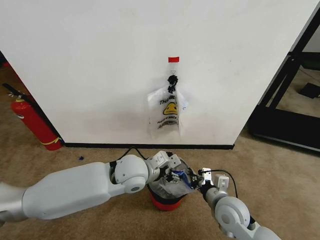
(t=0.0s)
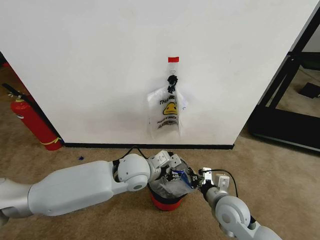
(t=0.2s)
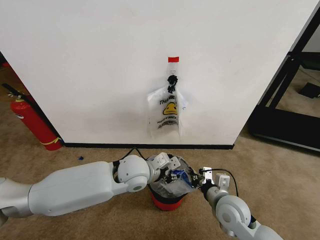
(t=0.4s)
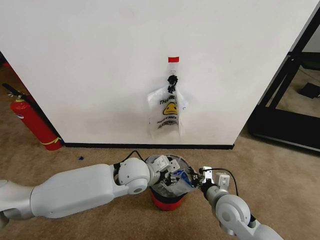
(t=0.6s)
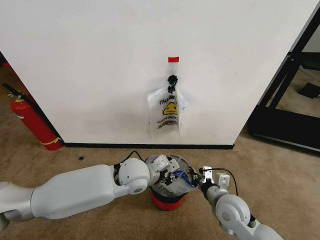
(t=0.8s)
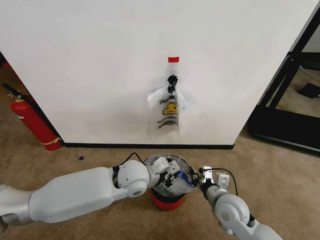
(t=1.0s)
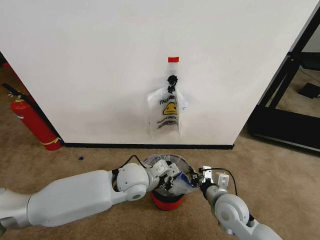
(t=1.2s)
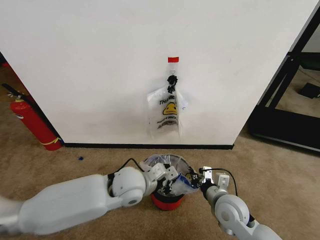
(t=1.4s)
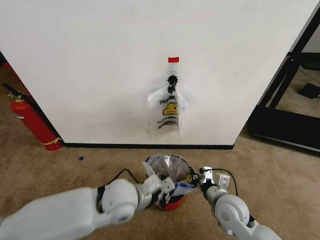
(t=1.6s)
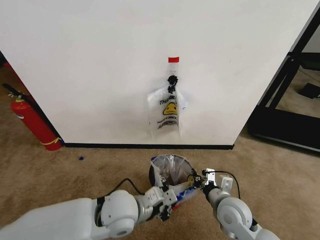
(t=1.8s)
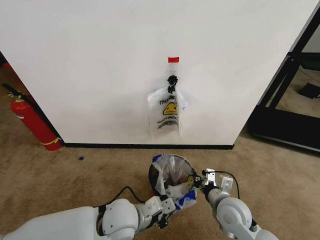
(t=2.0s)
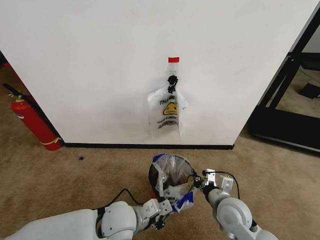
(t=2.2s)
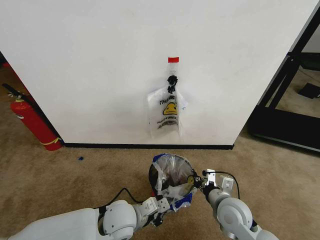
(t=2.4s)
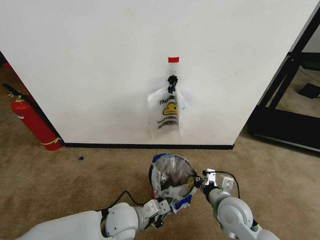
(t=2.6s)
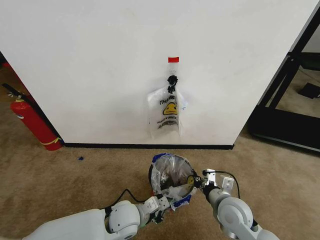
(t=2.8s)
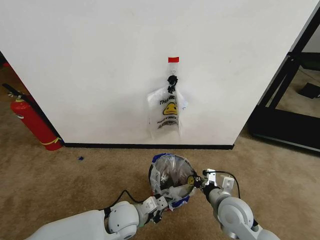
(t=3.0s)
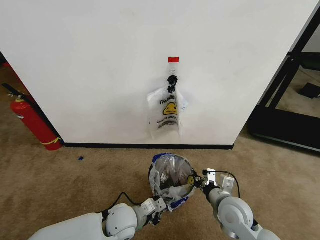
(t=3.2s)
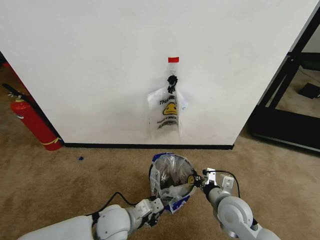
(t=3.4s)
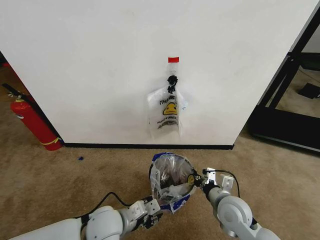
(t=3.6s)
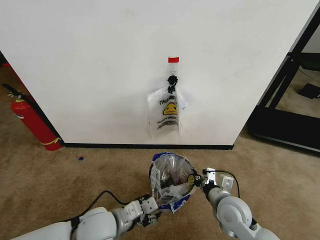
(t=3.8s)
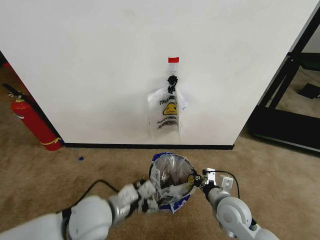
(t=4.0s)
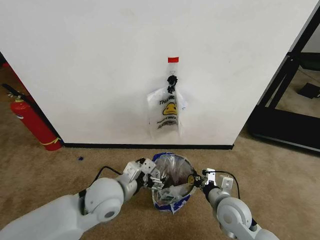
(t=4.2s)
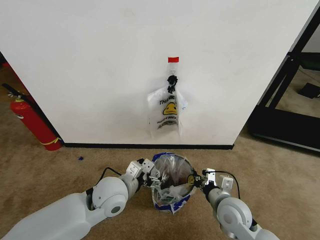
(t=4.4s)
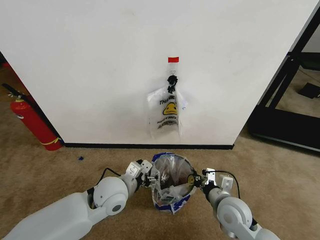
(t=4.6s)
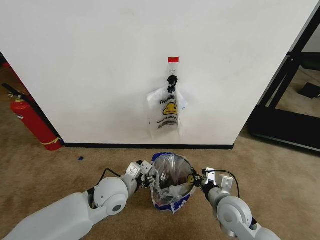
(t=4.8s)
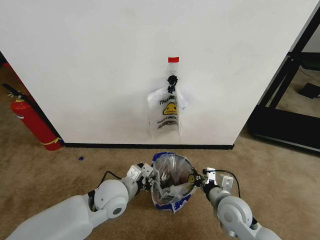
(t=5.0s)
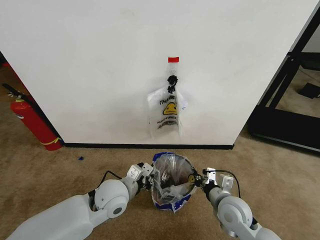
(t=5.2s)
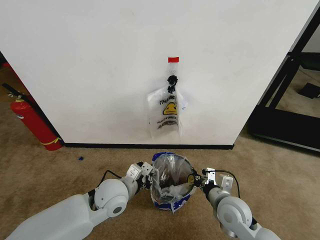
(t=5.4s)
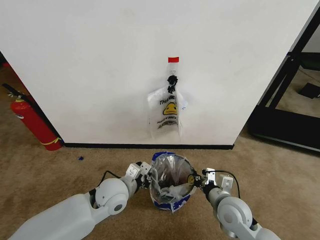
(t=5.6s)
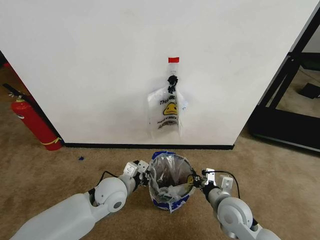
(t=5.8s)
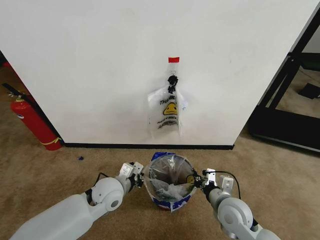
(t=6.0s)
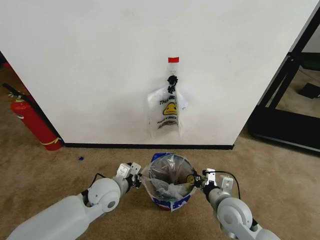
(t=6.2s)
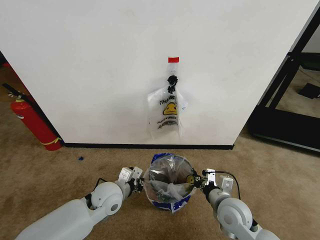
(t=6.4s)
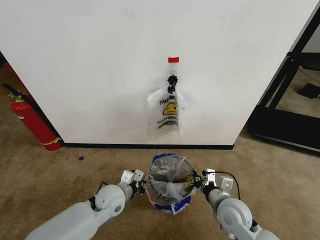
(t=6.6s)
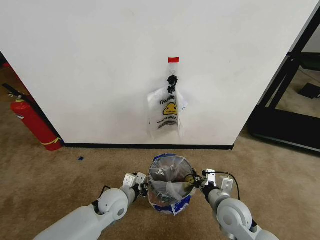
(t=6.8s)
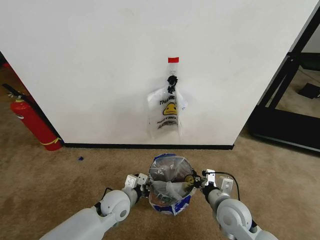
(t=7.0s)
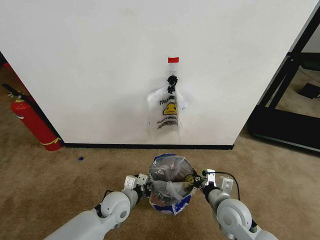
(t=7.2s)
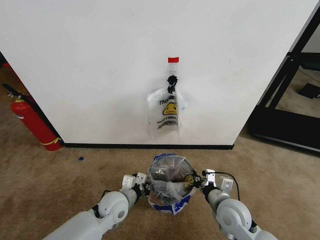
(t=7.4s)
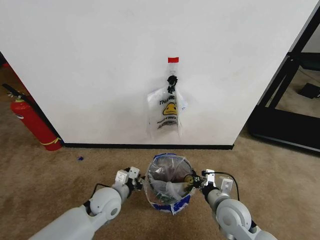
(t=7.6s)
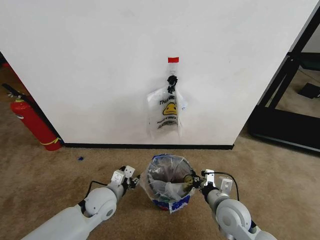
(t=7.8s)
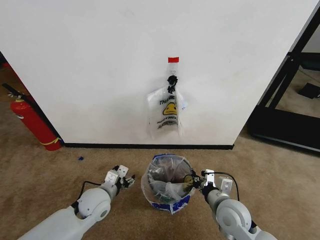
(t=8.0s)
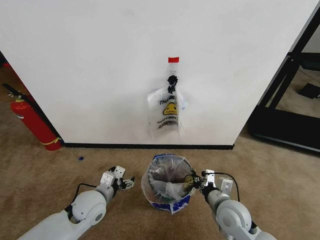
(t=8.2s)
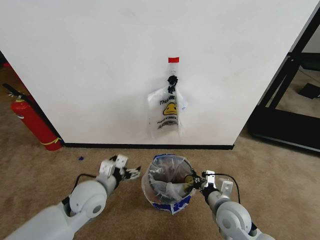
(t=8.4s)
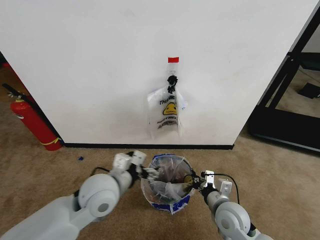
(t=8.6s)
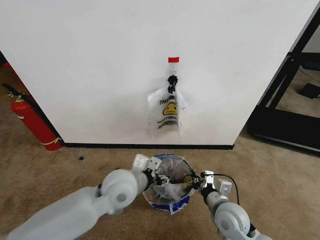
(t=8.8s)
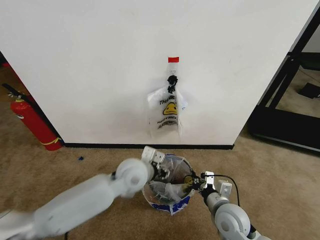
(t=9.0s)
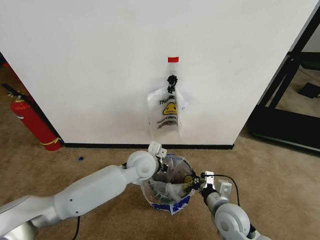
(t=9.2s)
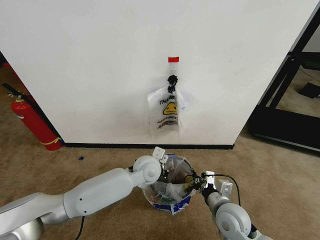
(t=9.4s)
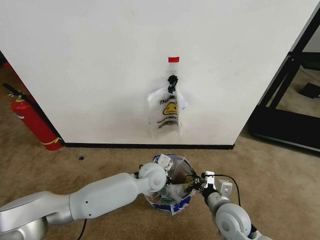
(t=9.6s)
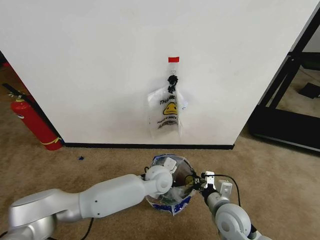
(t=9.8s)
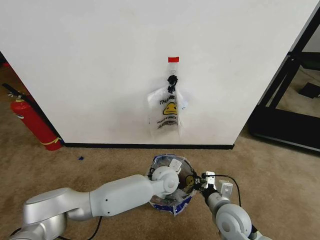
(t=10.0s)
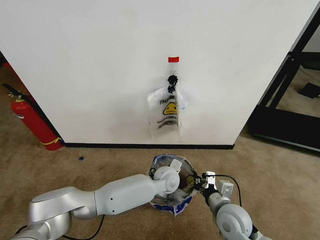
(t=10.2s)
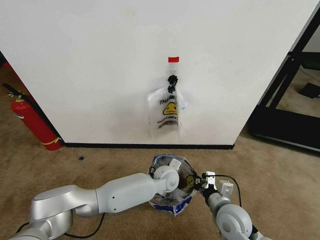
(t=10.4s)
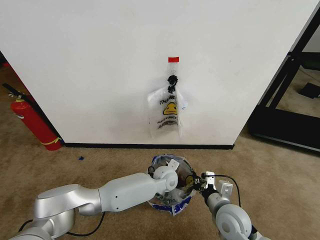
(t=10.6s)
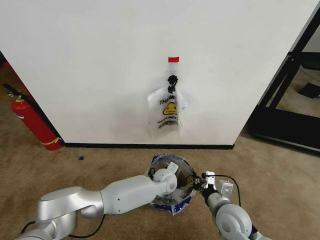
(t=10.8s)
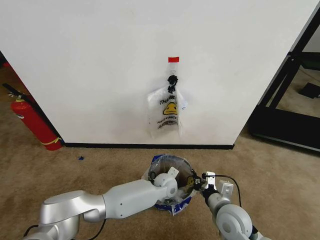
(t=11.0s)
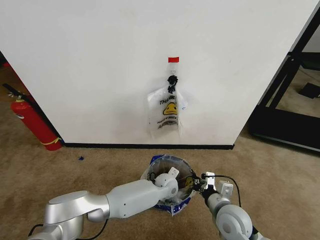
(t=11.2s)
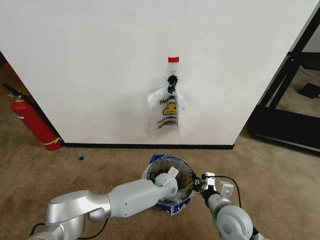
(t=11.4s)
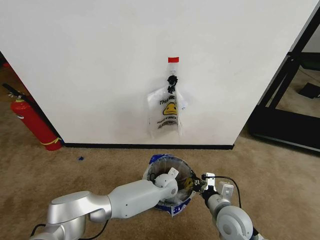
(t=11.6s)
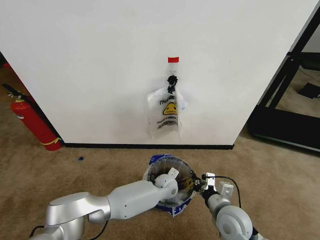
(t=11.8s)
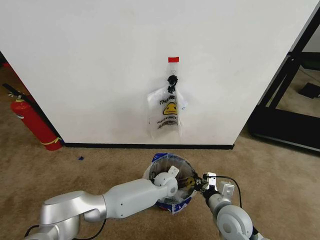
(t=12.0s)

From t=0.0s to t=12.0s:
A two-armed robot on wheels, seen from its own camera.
Task of the whole recording: Pick up the garbage bag from the wall and place it over the trash bin.
From t=0.0s to t=1.6s: The left gripper travels backward by roughly 5 cm, and closes up.
From t=1.6s to t=3.0s: The left gripper heads downward, covering some 10 cm.
From t=3.0s to t=4.4s: The left gripper goes about 10 cm upward, and opens up.
From t=4.4s to t=6.0s: The left gripper moves downward, about 5 cm, and closes its fingers.
From t=7.6s to t=9.0s: The left gripper shifts about 15 cm upward and to the right, and opens, then closes once more.
From t=9.0s to t=10.4s: The left gripper is displaced downward, to the right and forward by some 15 cm, and closes.

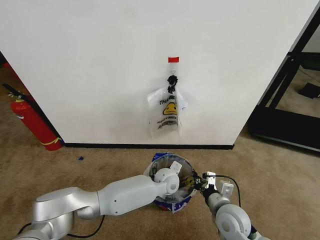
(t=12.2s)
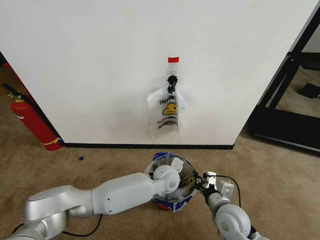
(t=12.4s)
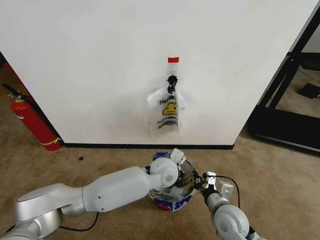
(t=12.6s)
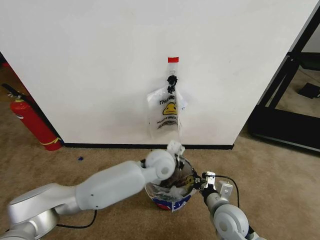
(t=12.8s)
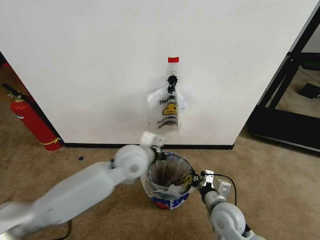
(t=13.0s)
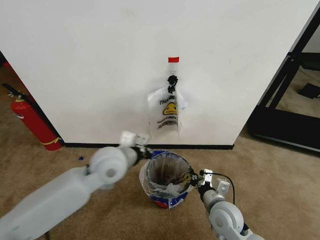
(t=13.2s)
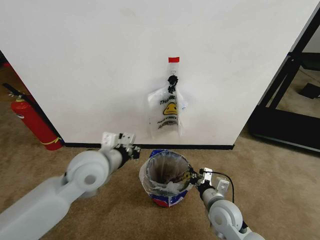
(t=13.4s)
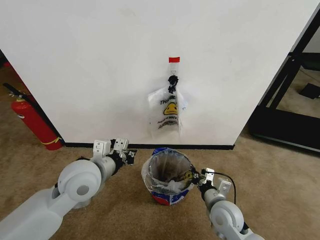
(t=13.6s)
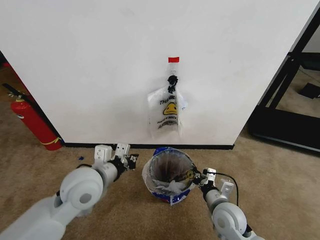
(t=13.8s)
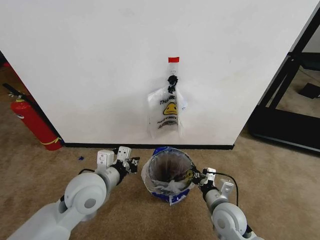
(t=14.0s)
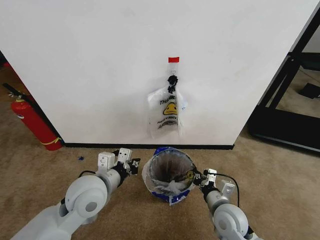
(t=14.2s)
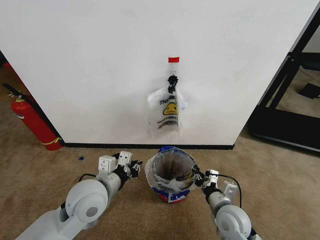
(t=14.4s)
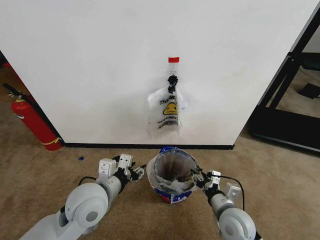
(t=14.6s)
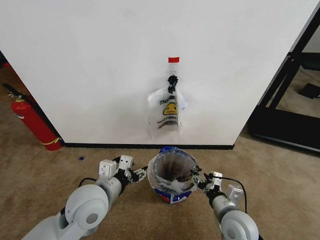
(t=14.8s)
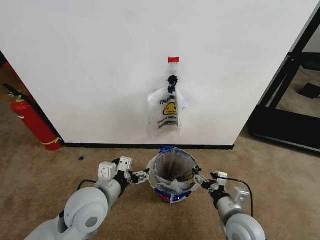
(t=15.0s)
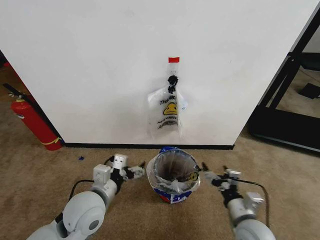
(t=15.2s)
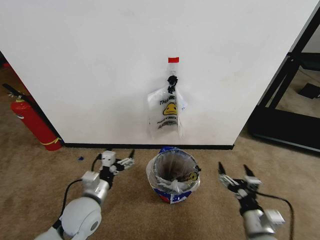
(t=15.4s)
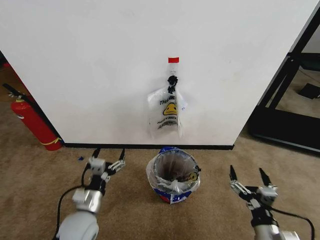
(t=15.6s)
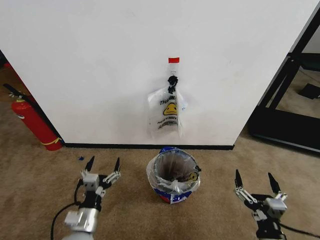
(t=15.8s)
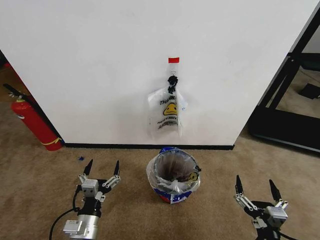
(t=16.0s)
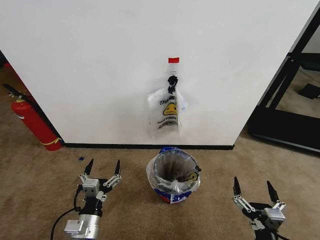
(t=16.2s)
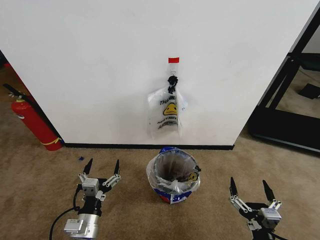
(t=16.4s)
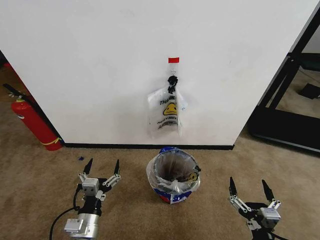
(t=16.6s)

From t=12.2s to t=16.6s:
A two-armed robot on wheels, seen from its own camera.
Task of the whole recording: Pick up the garbage bag from the wall and place it over the trash bin.
From t=12.2s to t=13.6s: The left gripper travels to the left, upward and backward by about 30 cm.
From t=13.6s to t=15.2s: The left gripper travels downward and backward by roughly 10 cm, and opens up. Meanwhile the right gripper travels backward by some 5 cm, and opens.
From t=15.2s to t=16.6s: The right gripper is displaced backward by about 10 cm. The left gripper travels downward and backward by approximately 15 cm.
